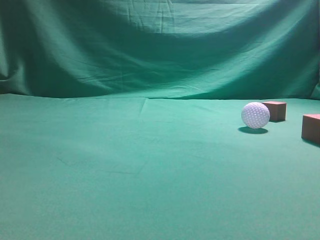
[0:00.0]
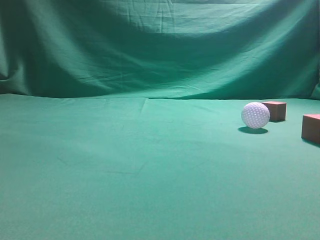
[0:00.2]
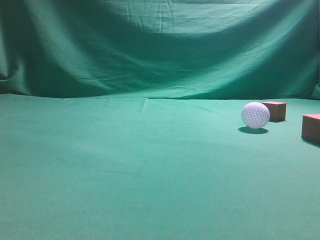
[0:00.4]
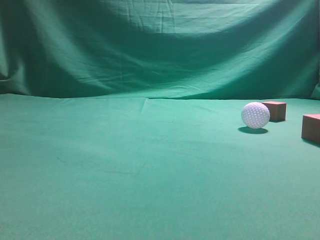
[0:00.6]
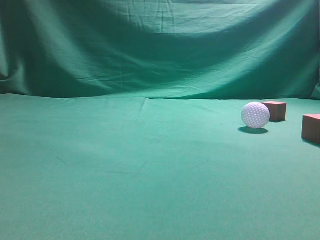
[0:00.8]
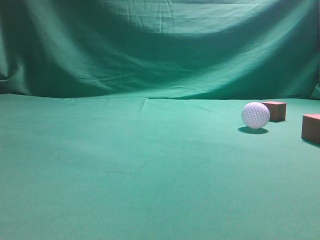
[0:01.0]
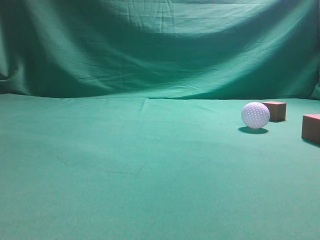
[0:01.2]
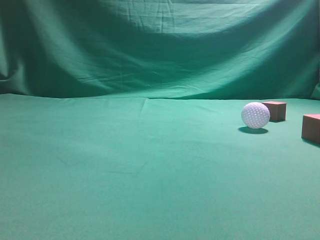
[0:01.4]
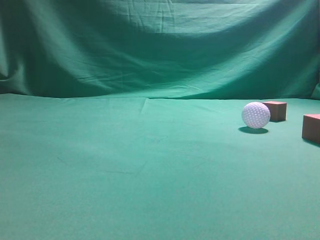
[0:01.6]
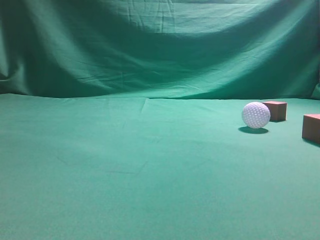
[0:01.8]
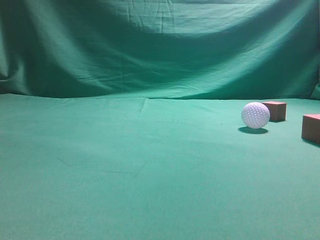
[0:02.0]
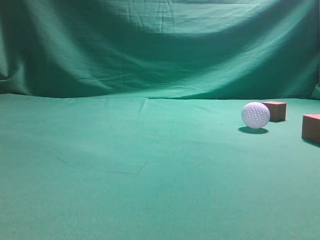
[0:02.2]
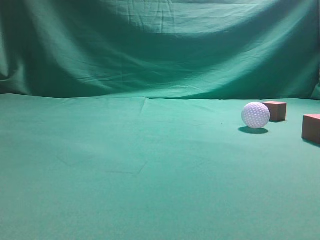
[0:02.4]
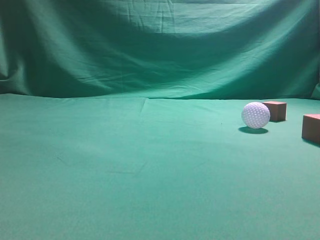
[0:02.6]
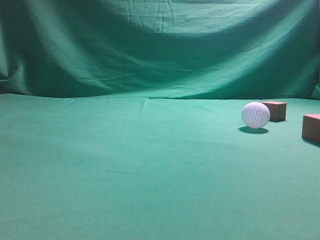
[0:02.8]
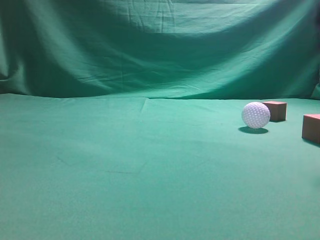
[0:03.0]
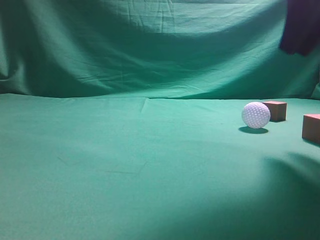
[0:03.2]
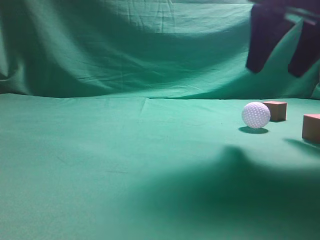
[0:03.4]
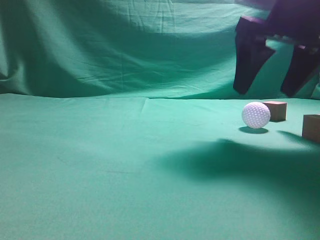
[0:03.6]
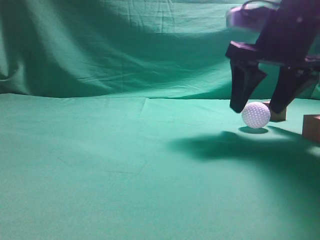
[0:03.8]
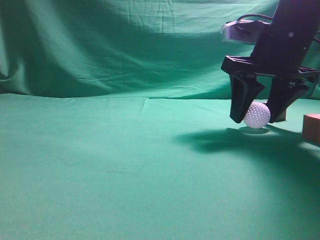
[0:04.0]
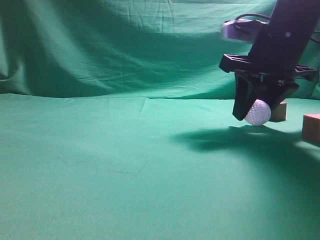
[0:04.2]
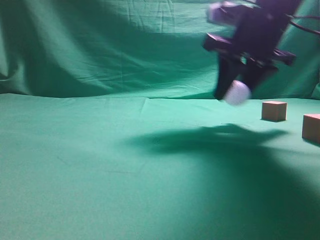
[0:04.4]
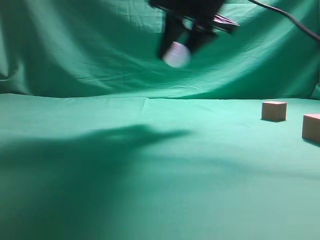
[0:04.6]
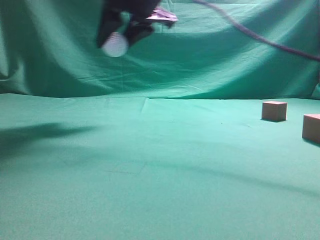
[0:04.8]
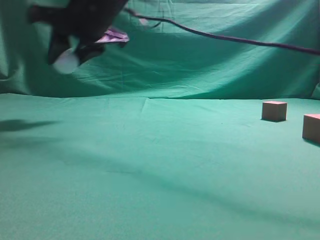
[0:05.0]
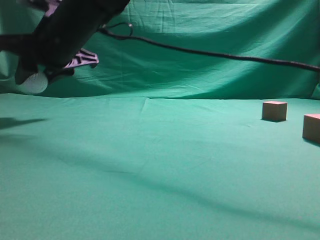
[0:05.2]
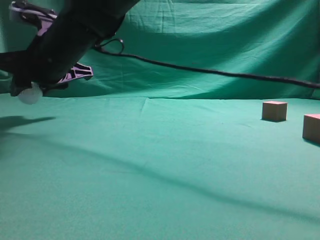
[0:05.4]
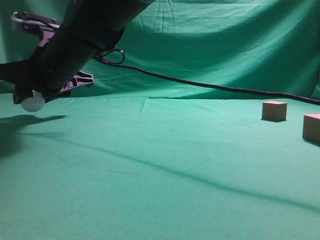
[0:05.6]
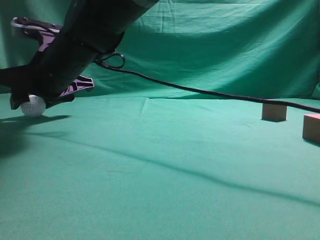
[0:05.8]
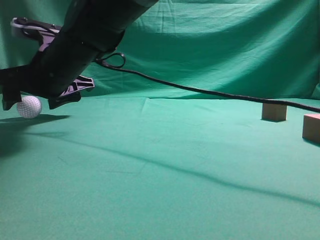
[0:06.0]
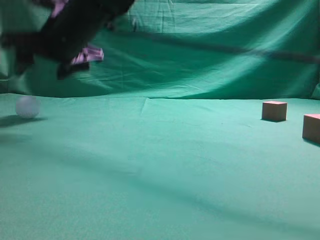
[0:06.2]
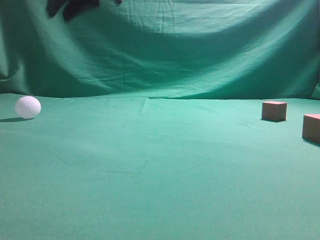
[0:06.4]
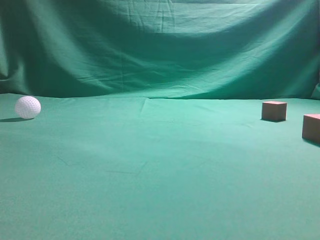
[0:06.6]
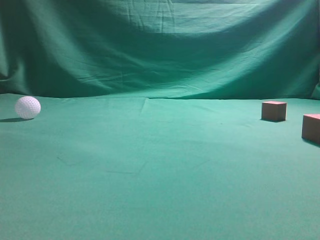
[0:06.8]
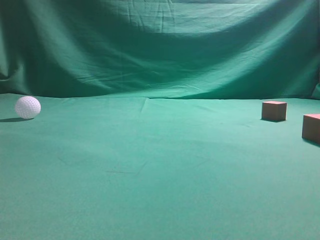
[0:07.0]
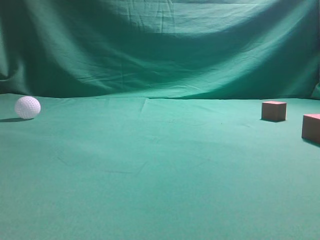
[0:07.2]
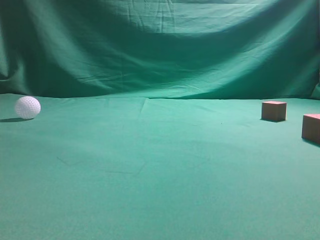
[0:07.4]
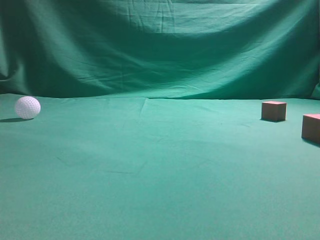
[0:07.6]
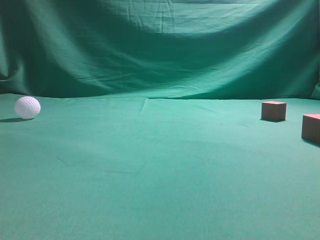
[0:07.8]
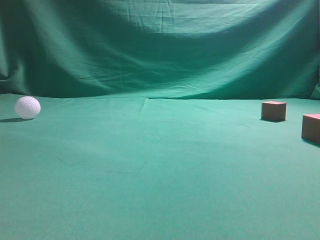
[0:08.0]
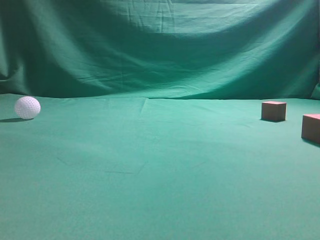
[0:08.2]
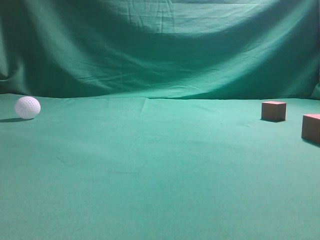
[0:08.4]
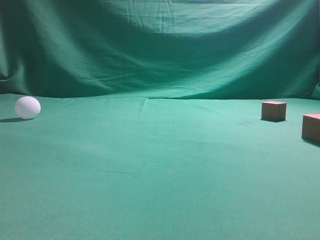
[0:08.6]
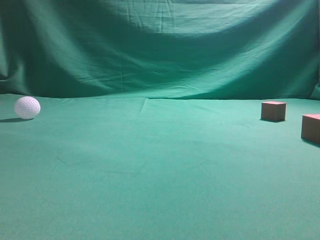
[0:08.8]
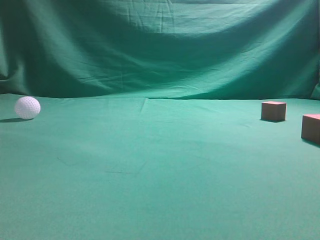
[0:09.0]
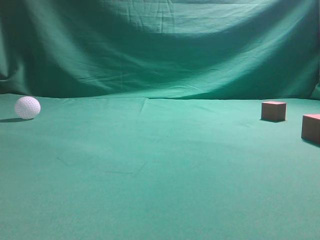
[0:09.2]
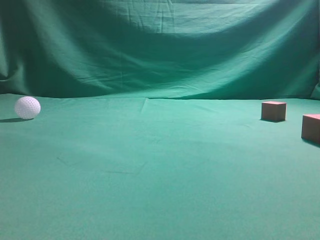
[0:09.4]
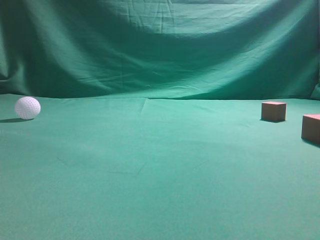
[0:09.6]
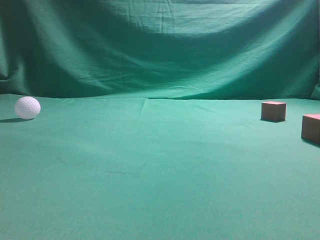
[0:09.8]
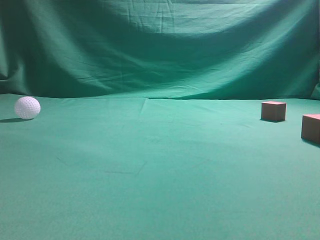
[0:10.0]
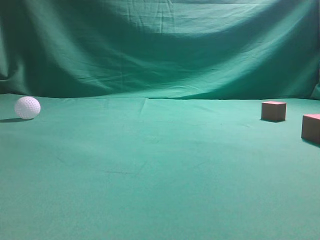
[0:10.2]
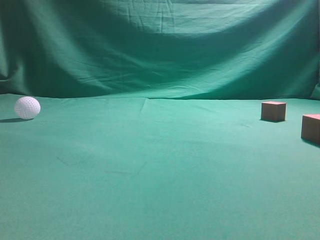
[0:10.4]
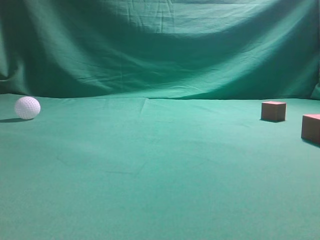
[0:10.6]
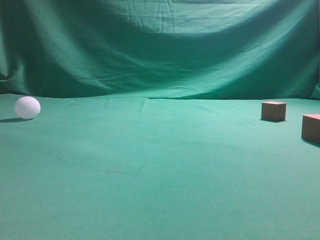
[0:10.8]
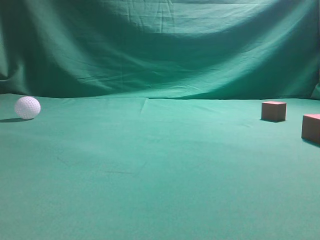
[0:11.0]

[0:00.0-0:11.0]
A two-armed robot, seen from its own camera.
Step, 0:00.0 to 0:04.4: Grasp the spherical object on the right side.
0:01.6 to 0:03.2: The right gripper moves forward and to the left, roughly 25 cm.
0:03.2 to 0:04.8: The right gripper travels to the left and forward by about 25 cm, and opens and closes again.
0:04.8 to 0:06.2: The right gripper heads to the left and downward, covering about 15 cm, and opens its fingers.
0:06.2 to 0:07.8: The right gripper is displaced to the right, upward and backward by some 40 cm, and closes up.
